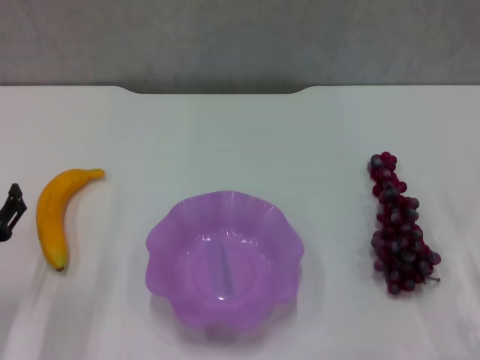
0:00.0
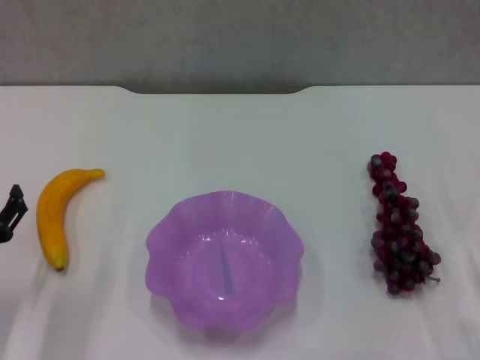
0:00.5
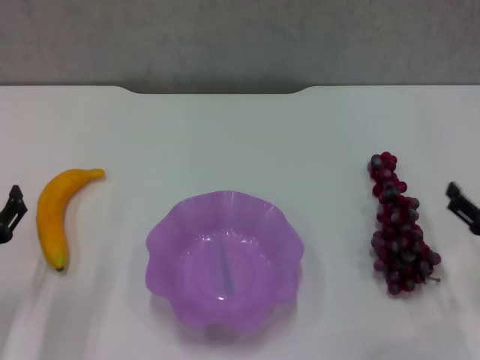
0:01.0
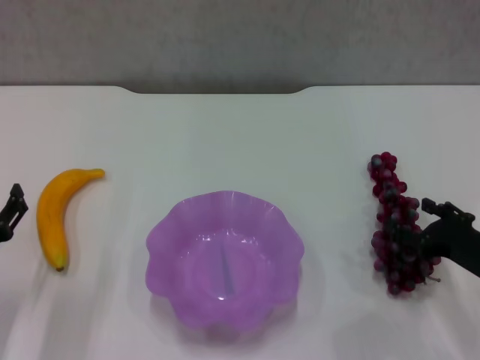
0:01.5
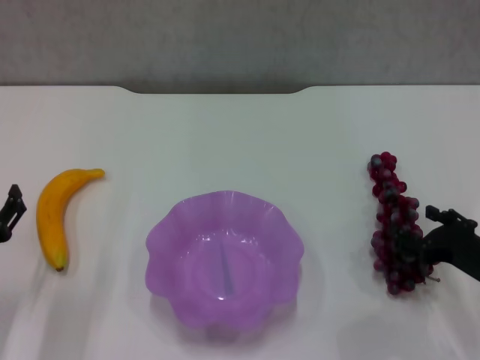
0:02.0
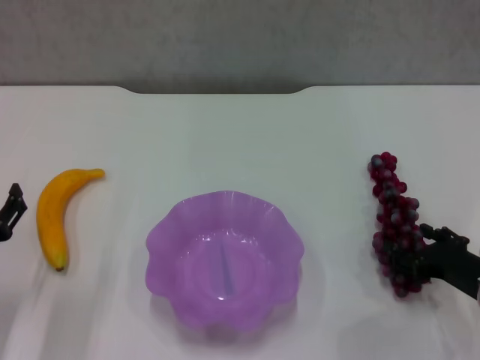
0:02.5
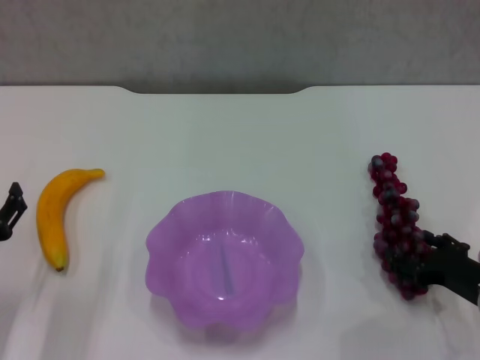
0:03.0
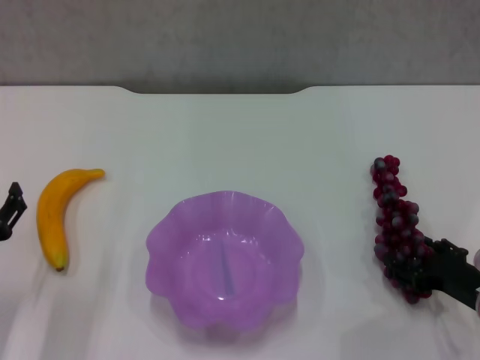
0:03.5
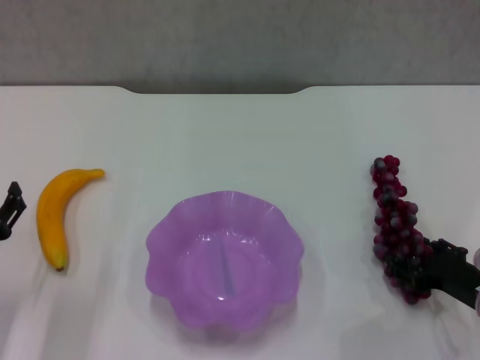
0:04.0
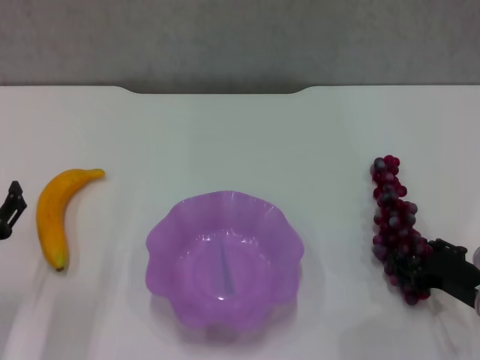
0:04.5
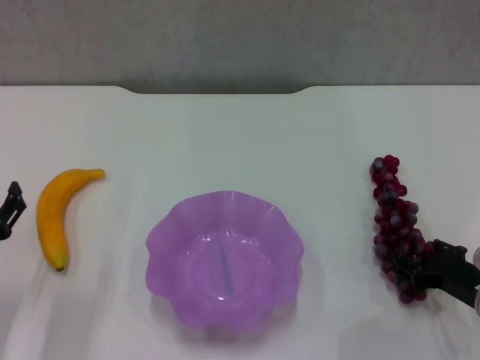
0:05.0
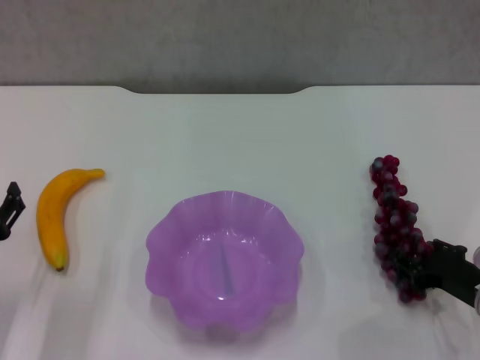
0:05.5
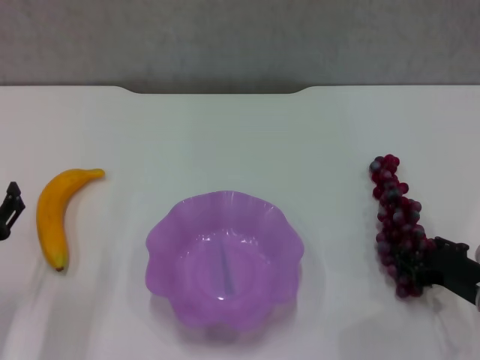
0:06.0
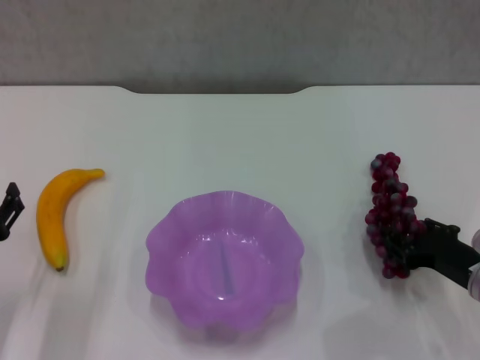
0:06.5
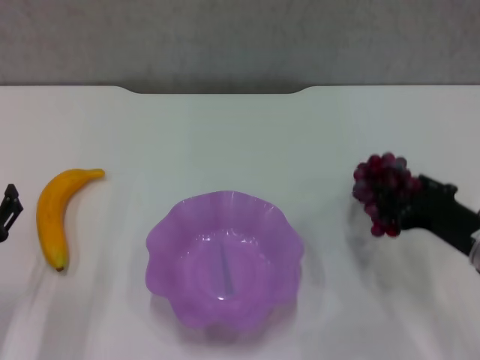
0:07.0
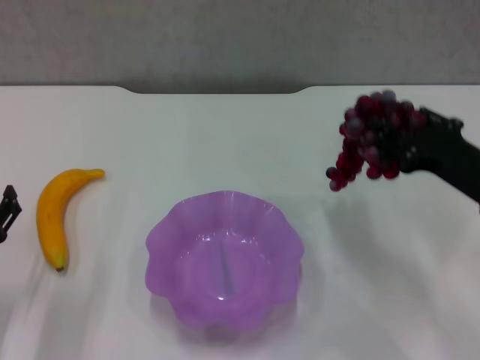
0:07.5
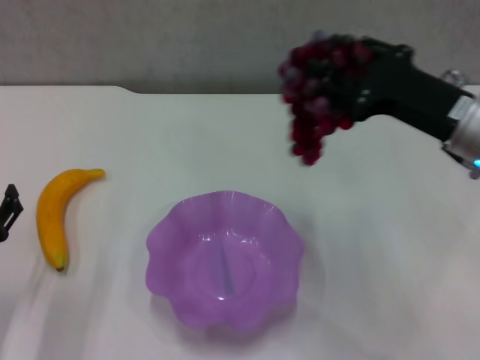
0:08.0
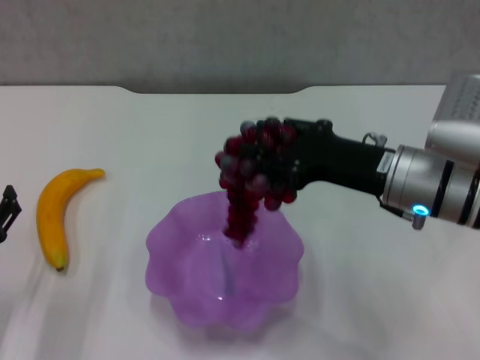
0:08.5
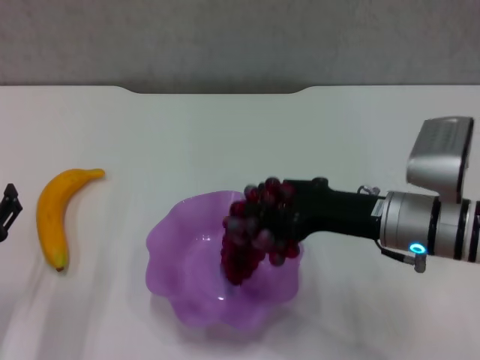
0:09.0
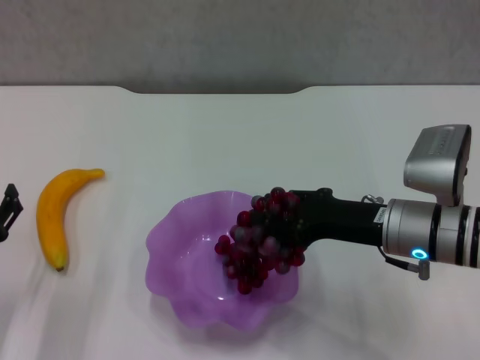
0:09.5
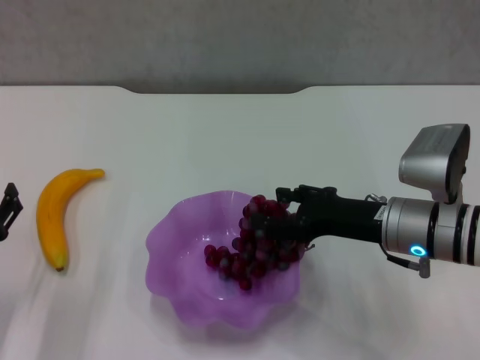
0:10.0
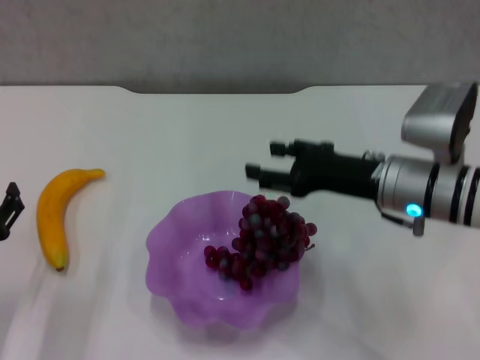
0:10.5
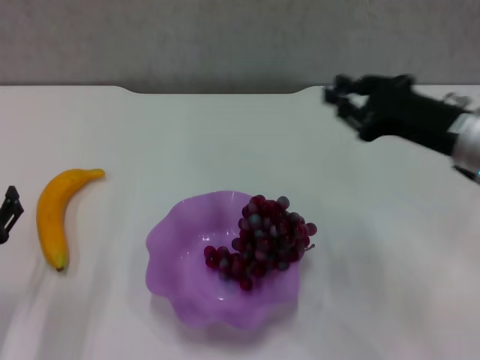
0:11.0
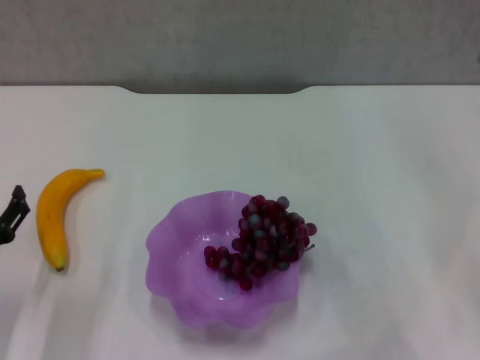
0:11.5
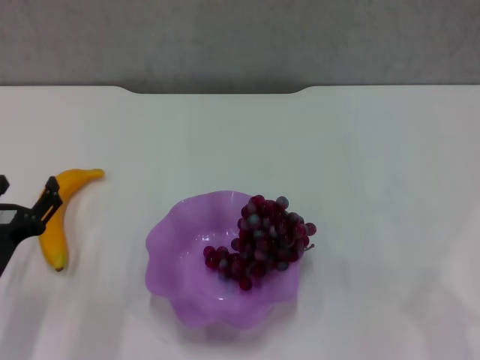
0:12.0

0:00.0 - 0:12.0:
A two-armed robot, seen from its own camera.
Step, 0:00.0 - 0:05.5: Grasp the grape with right gripper.
Step, 0:06.0 - 0:10.0: Place the grape in the purple plate with right gripper.
0:00.0 - 0:02.0: The right gripper shifts by roughly 5 cm, and opens.
0:02.0 - 0:04.0: The grippers move only a little.
0:04.0 - 0:06.0: Both grippers stay put.
0:06.0 - 0:08.0: The right gripper goes approximately 20 cm upward, to the left and forward.
0:08.0 - 0:10.0: The right gripper heads downward, covering roughly 10 cm, and opens up.
0:10.0 - 0:12.0: The right gripper moves to the right and backward, approximately 20 cm, and closes its fingers.

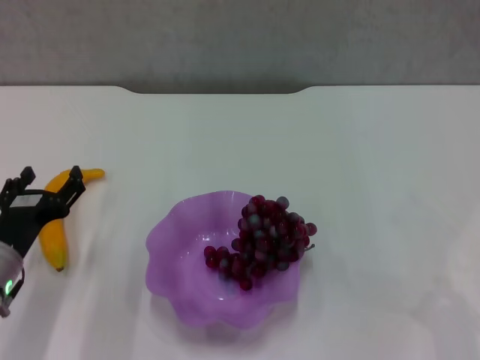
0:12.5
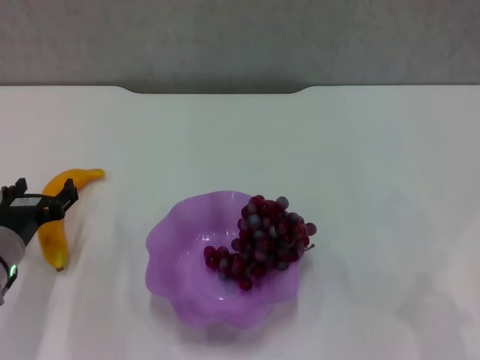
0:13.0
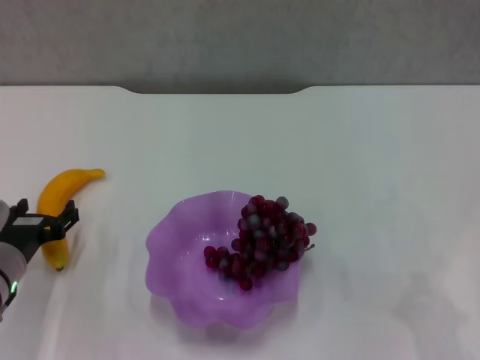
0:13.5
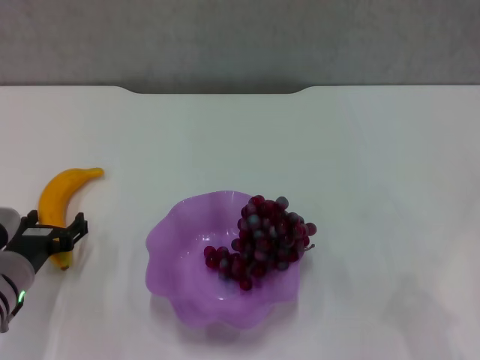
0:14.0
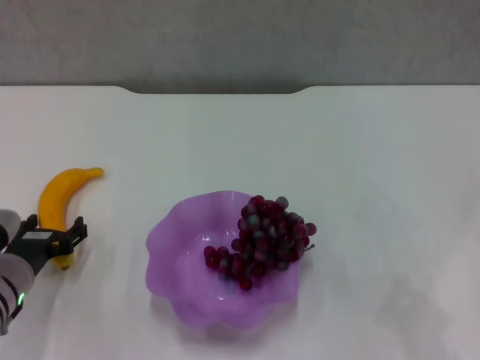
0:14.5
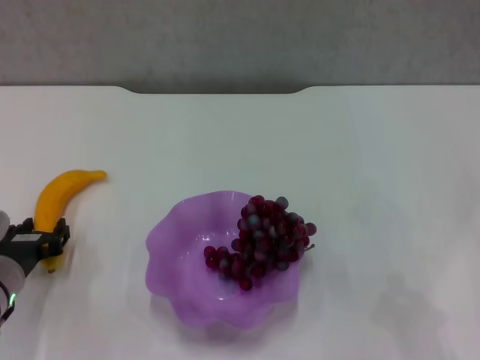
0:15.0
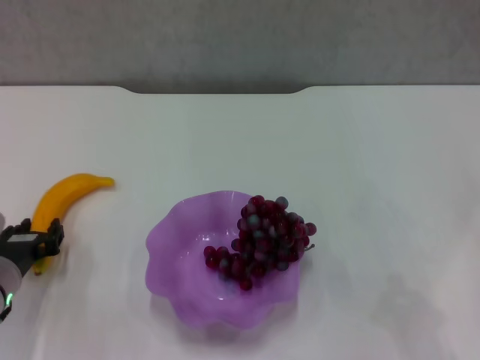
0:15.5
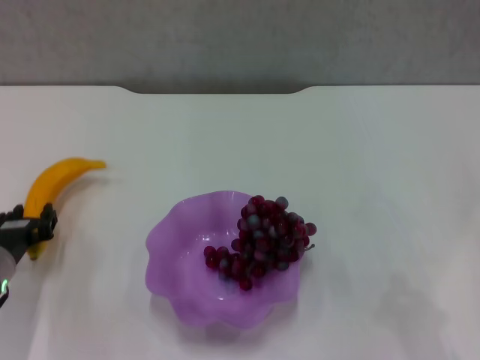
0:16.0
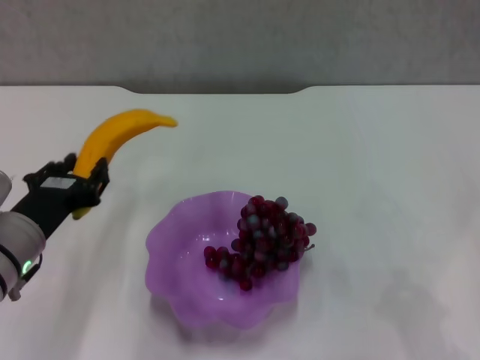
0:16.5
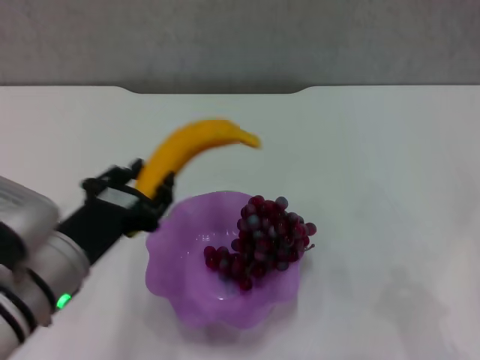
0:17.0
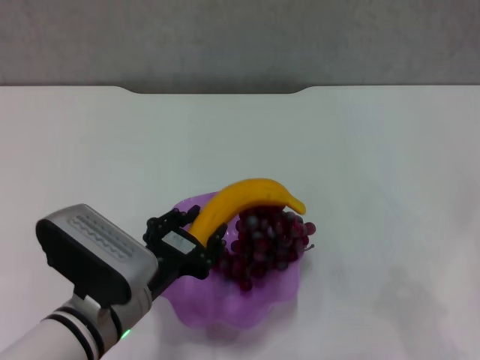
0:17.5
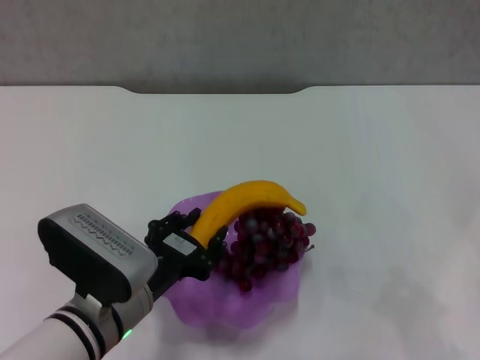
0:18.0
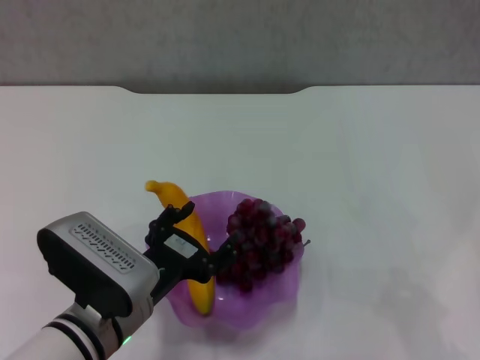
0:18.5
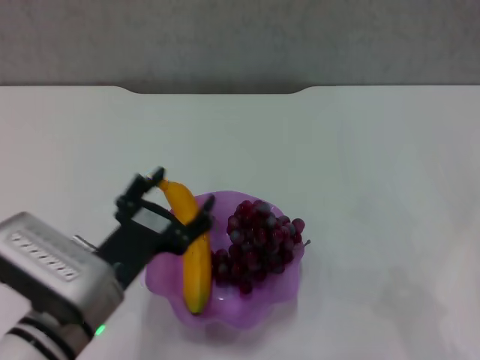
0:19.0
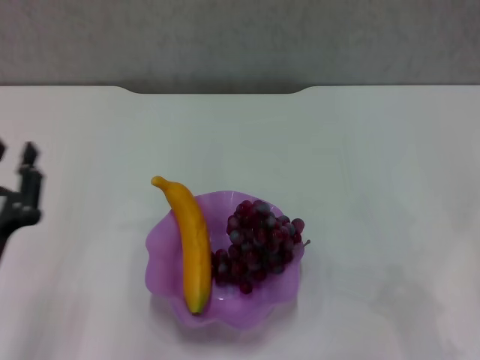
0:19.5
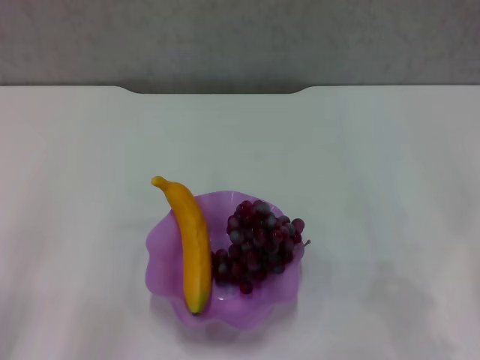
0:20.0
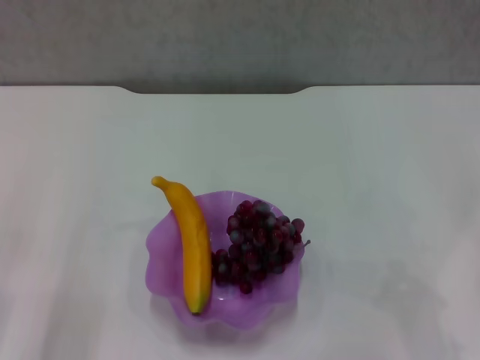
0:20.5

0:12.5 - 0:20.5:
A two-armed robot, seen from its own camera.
Step, 0:12.5 - 0:15.5: Grasp the banana with left gripper.
Step, 0:16.0 - 0:18.5: Place the banana in the purple plate with left gripper.
0:14.5 - 0:16.5: The left gripper is displaced upward by roughly 10 cm, and closes up.
0:16.5 - 0:18.5: The left gripper travels to the right by approximately 10 cm.
0:18.5 - 0:20.5: The left gripper travels to the left by approximately 20 cm, and closes its fingers.

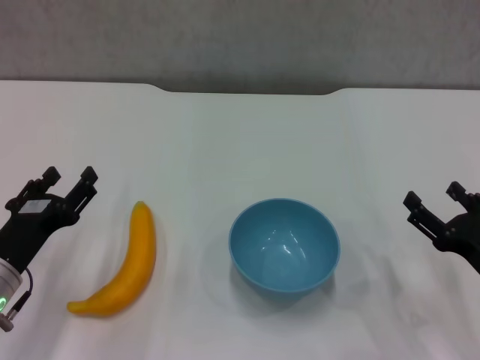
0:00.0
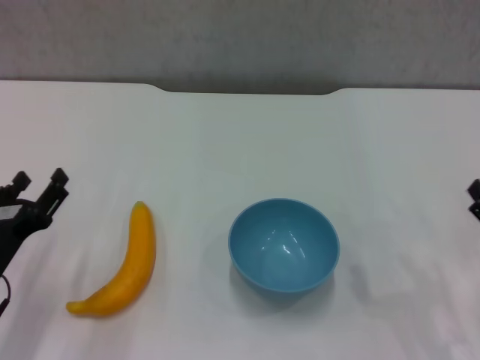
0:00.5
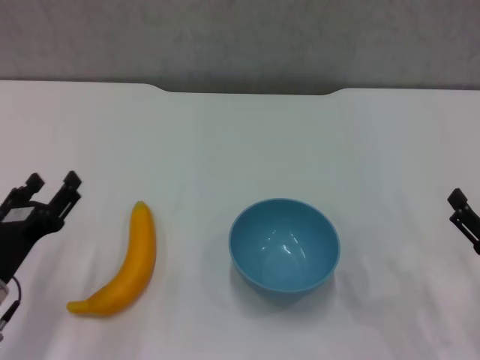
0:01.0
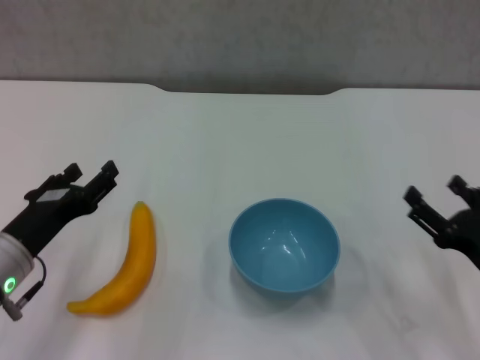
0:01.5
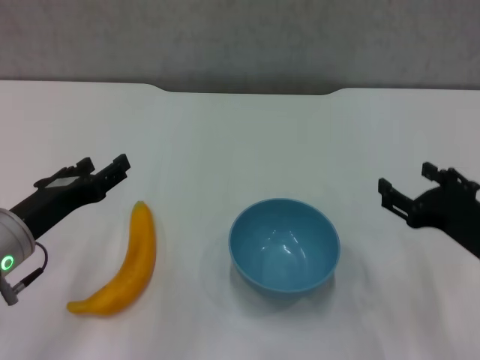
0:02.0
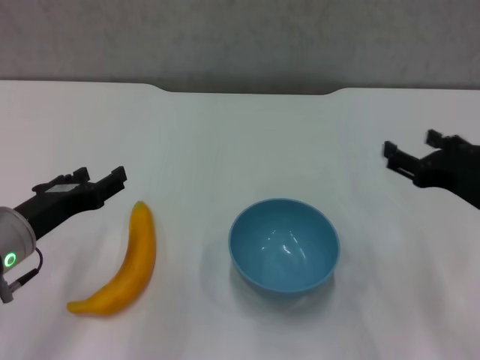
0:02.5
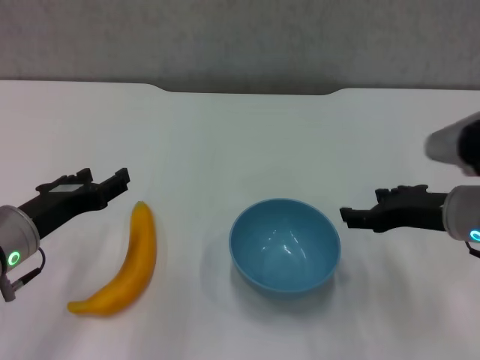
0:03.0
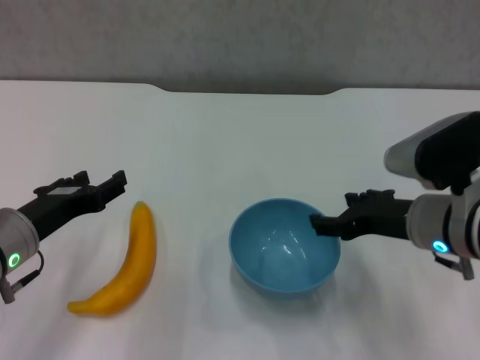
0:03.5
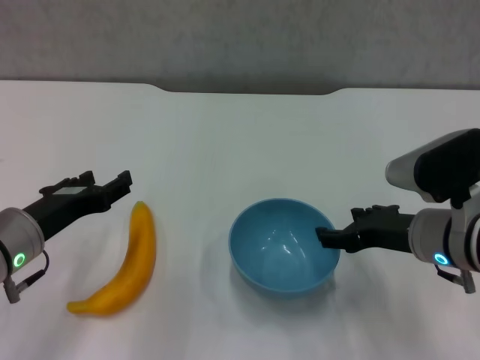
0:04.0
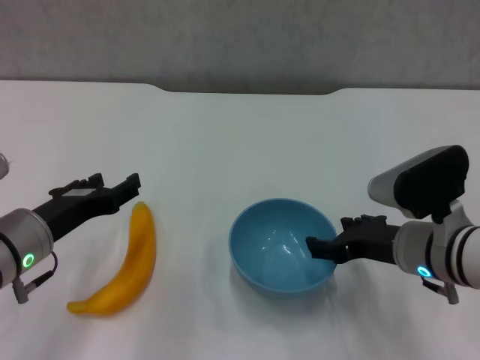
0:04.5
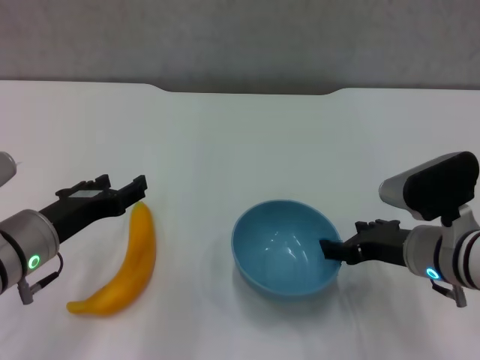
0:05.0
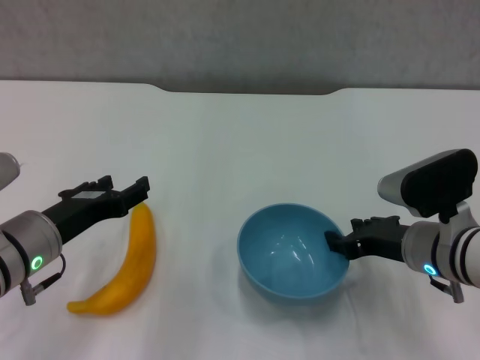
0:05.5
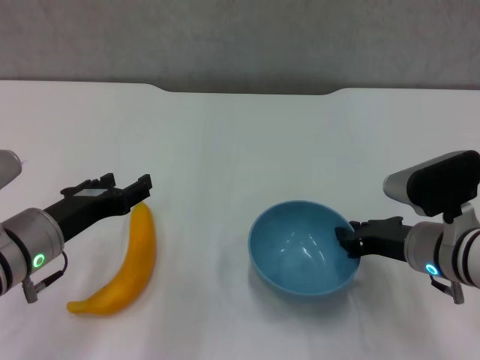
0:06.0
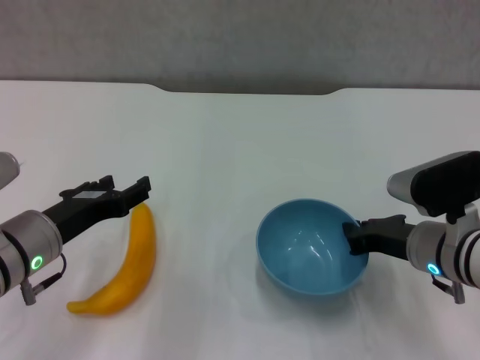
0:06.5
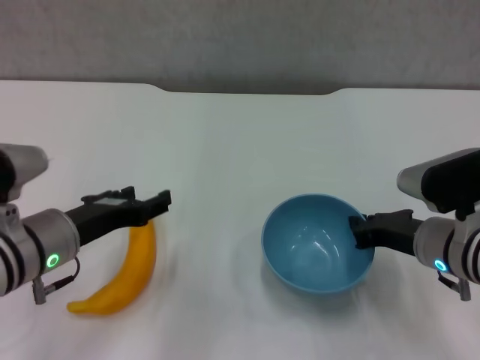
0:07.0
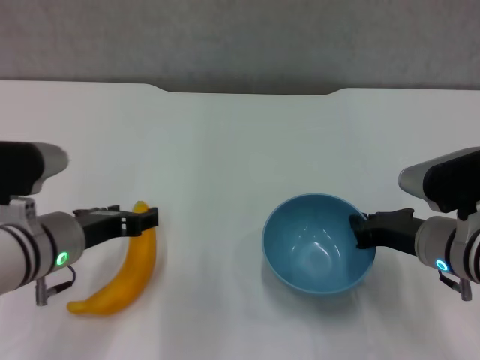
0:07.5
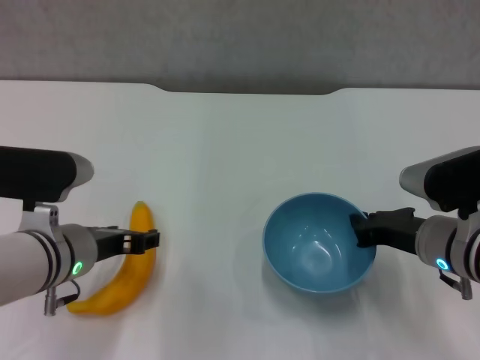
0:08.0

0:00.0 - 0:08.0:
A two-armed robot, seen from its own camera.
Step, 0:00.0 - 0:06.0: Grasp the blue bowl with right gripper.
Step, 0:06.5 - 0:07.0: Lift the blue bowl with right gripper.
0:00.0 - 0:02.0: Both grippers travel together upward, roughly 5 cm.
0:02.0 - 0:04.0: The right gripper moves to the left, roughly 5 cm.
0:04.0 - 0:06.0: The right gripper closes up.
0:06.0 - 0:08.0: The right gripper closes.
